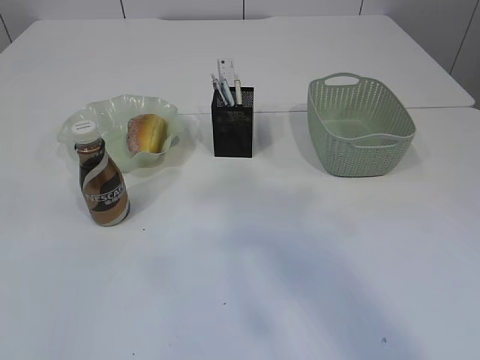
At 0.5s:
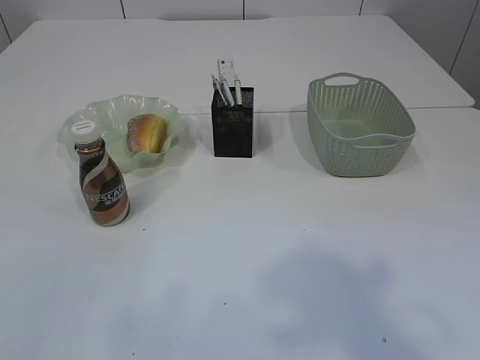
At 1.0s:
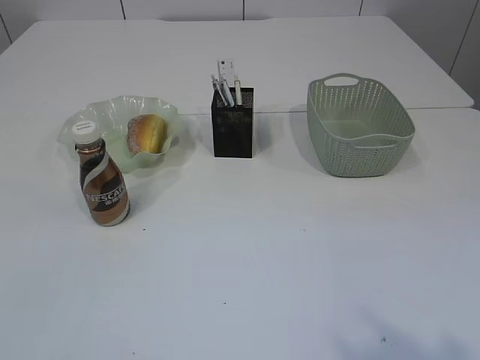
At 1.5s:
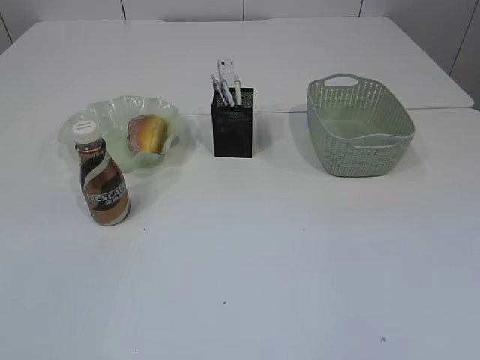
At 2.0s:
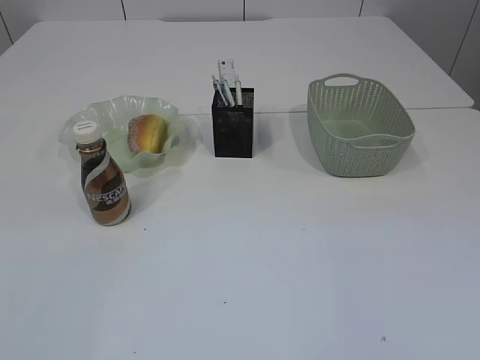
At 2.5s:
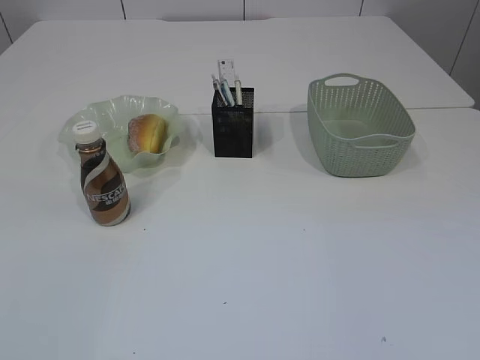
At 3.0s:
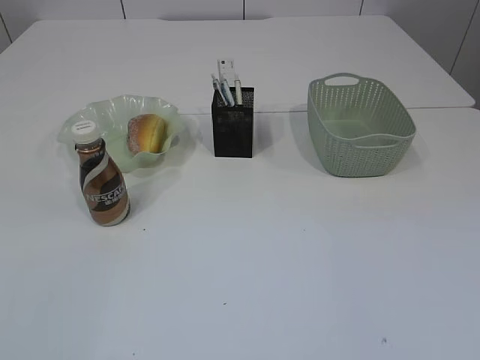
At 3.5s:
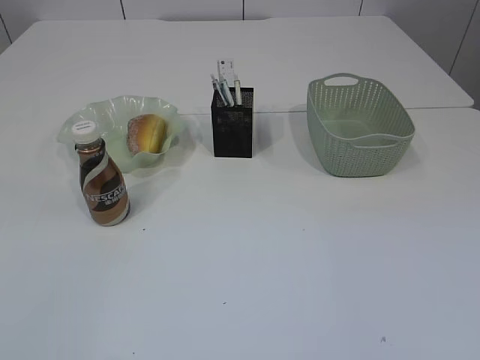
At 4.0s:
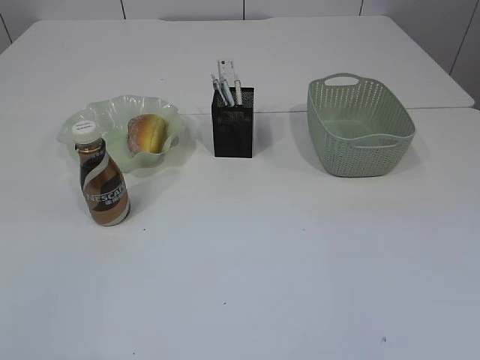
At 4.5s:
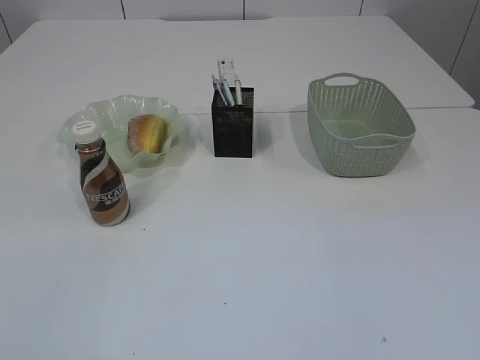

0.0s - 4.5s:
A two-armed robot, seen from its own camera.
0.0s - 2.0s: The left gripper shifts about 20 cm downward.

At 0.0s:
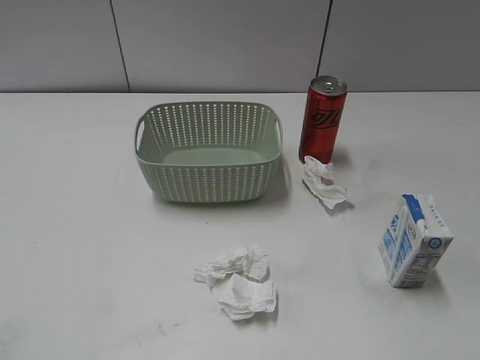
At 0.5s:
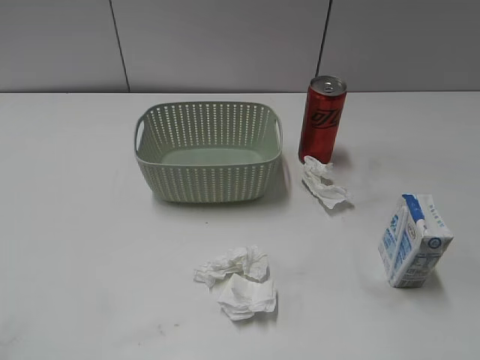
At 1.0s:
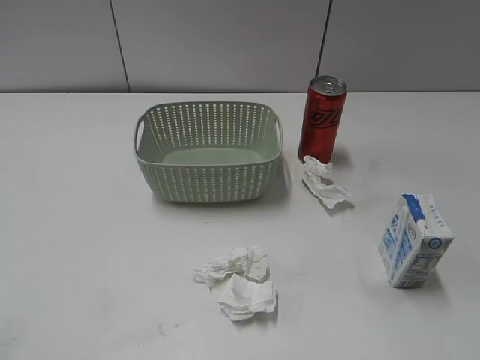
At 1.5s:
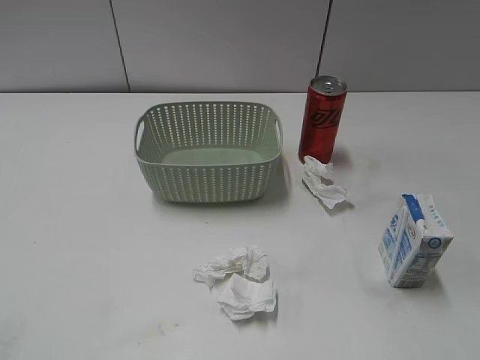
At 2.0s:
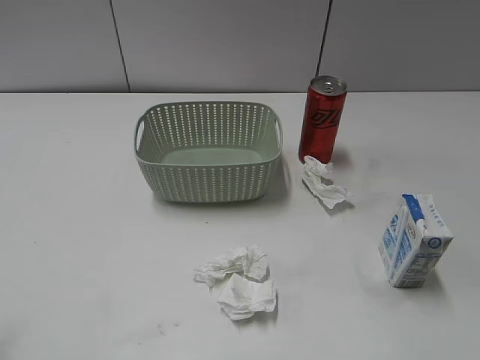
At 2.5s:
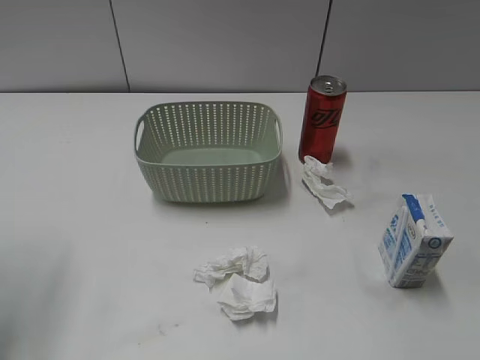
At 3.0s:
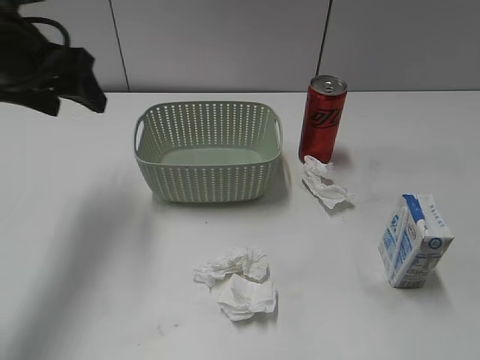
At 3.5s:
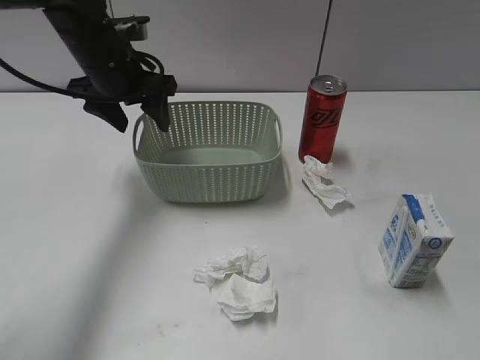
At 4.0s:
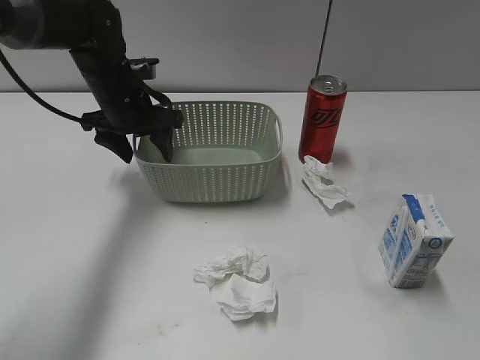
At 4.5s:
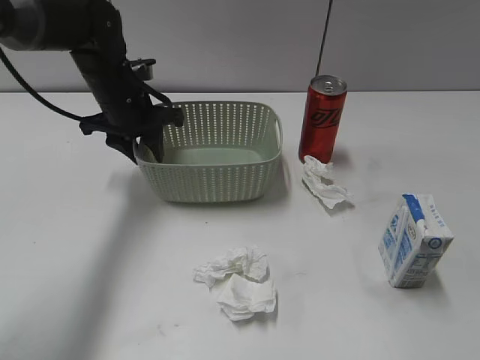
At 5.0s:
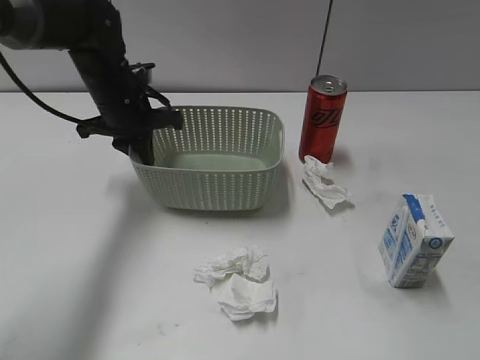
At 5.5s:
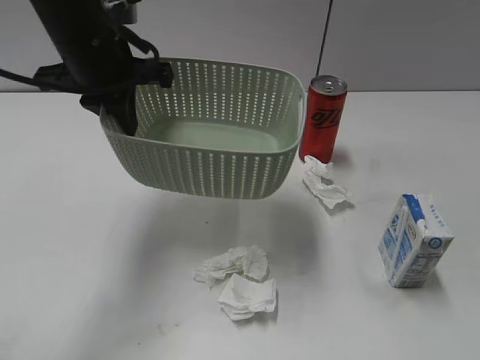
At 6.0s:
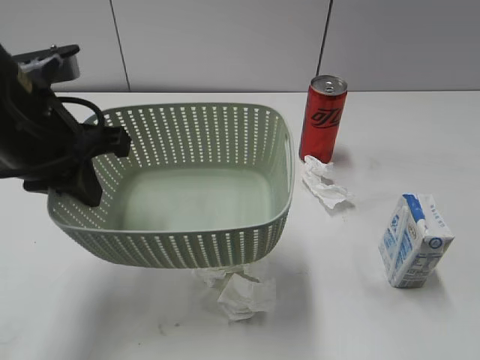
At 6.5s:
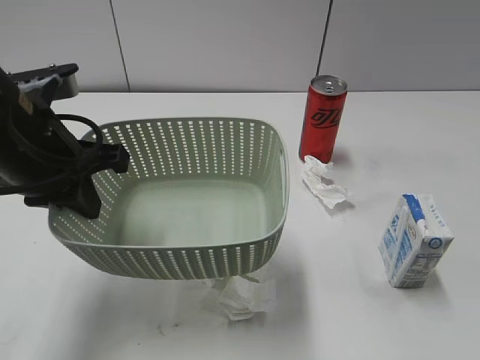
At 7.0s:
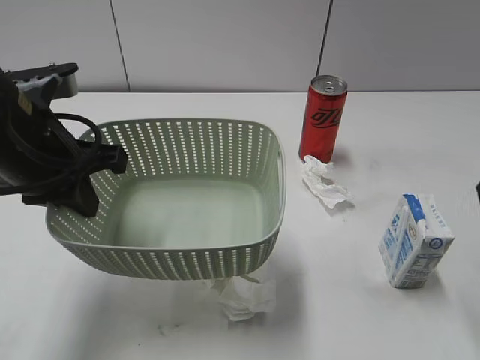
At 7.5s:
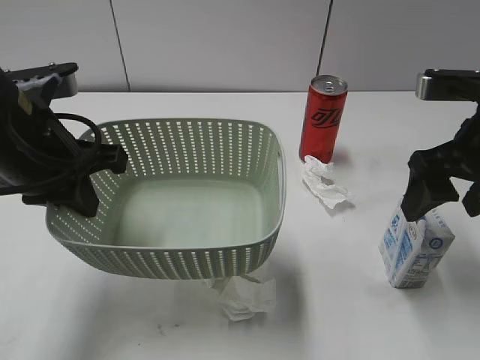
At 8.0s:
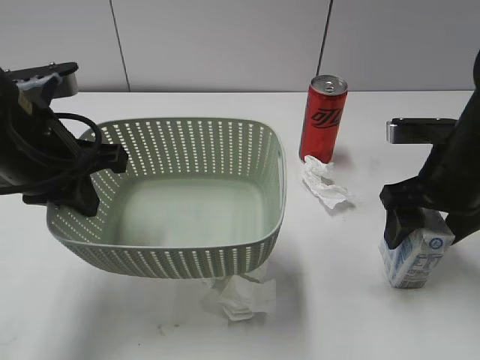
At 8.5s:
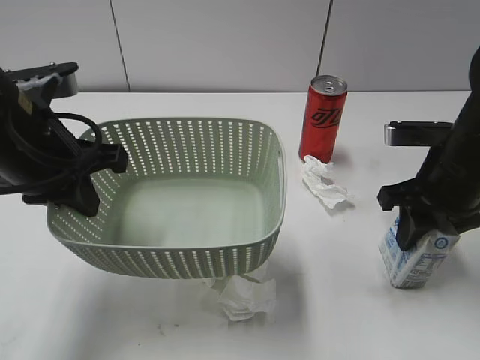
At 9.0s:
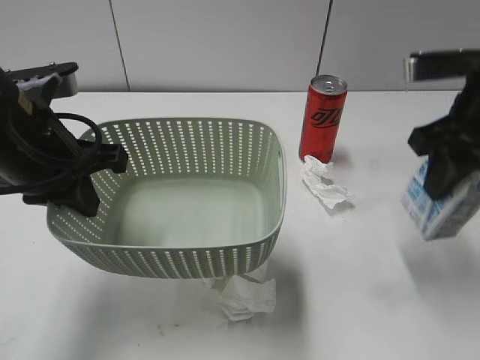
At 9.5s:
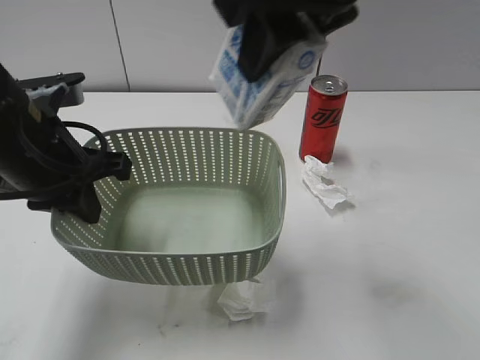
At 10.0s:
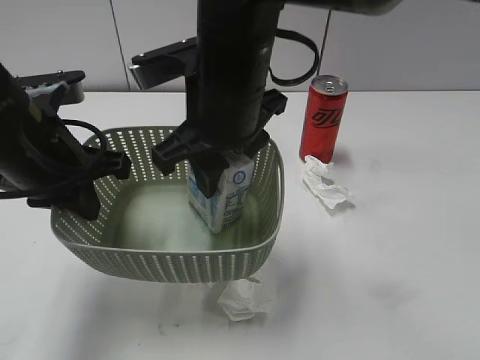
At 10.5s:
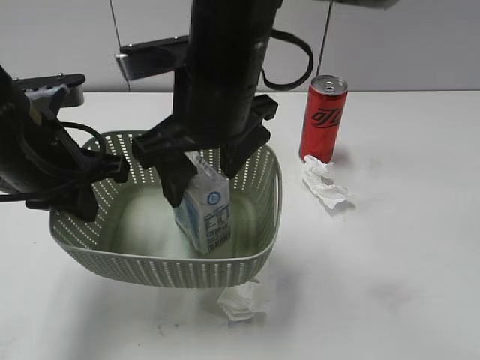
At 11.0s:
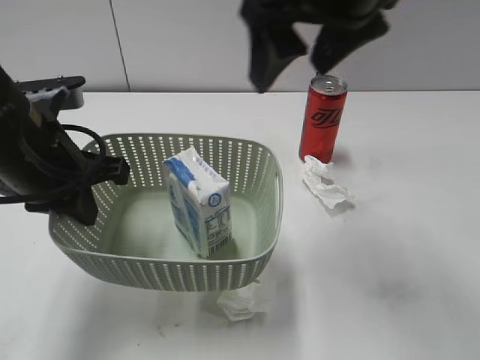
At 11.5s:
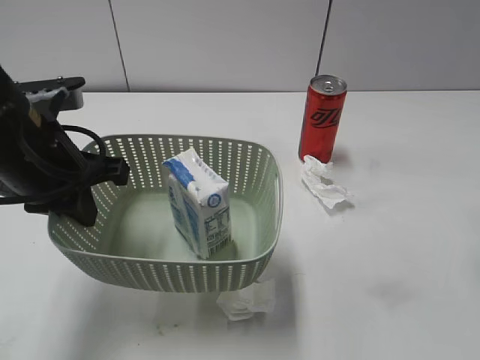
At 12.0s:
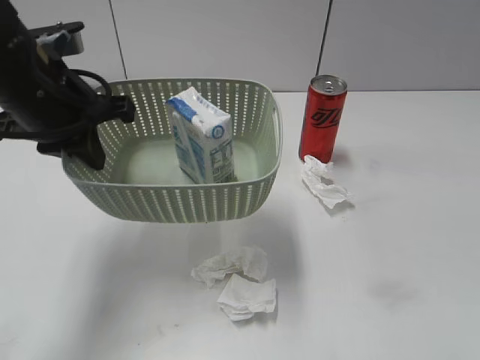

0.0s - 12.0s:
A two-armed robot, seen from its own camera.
Step, 3.0s - 4.5s: Grasp the basket with left gripper.
Step, 5.0s - 6.5s: Lift the basket with left gripper.
Step, 7.0s - 8.5s: Grasp the milk with right gripper.
Step, 9.0s - 10.5s: Place the milk in the basket with right gripper.
2.0s - 4.0s: The left gripper travels forward and to the right by approximately 40 cm.
4.0s - 6.0s: The left gripper goes about 20 cm backward and upward, and closes up.
6.0s - 8.0s: The right gripper goes roughly 30 cm forward.
8.0s - 10.0s: The right gripper moves to the left, some 25 cm, and closes.
10.0s - 12.0s: The left gripper shifts by approximately 5 cm. Meanwhile the right gripper heads to the right and backward, covering approximately 35 cm, and opens.

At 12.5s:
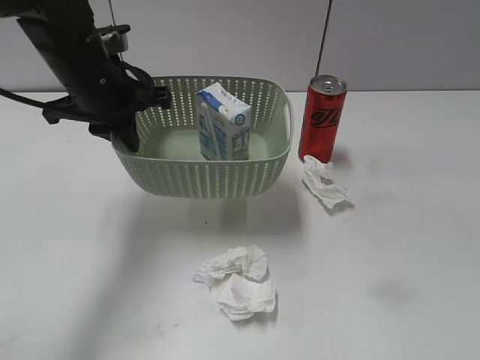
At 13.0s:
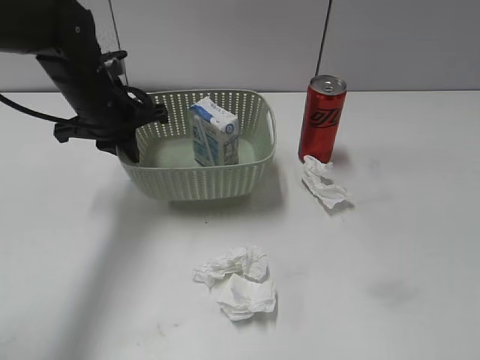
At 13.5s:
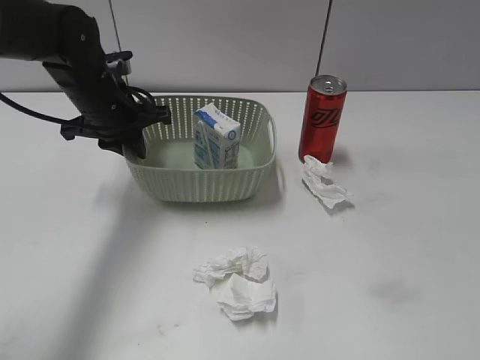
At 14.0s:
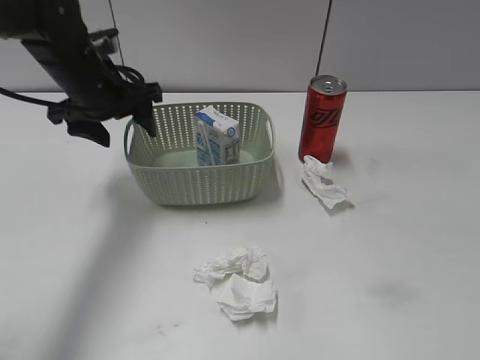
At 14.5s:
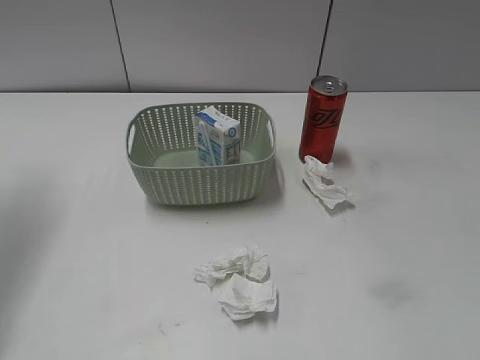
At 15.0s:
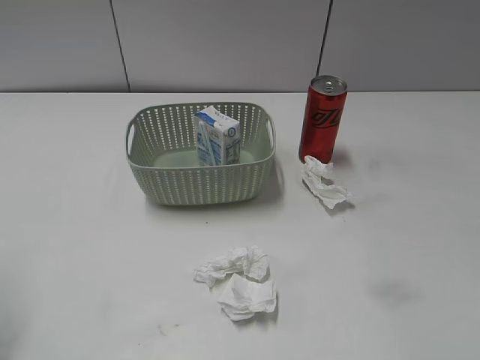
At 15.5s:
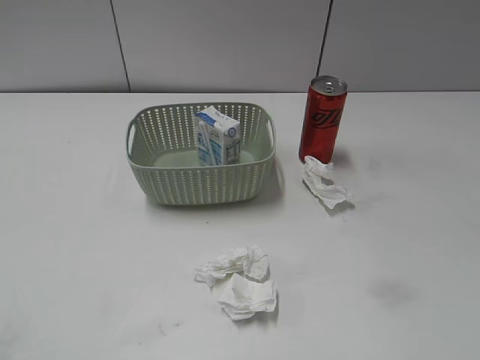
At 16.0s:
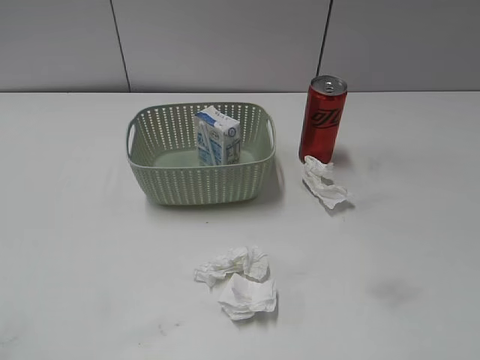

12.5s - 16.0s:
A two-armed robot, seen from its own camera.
12.5s - 14.5s: The left gripper goes approximately 20 cm to the left and upward, and opens up.
14.5s - 16.0s: The left gripper shifts about 35 cm backward.

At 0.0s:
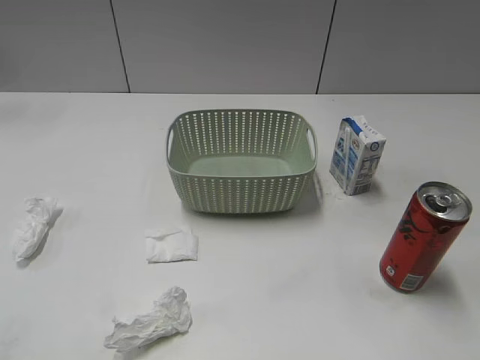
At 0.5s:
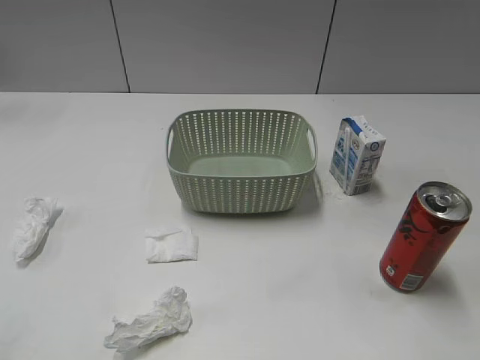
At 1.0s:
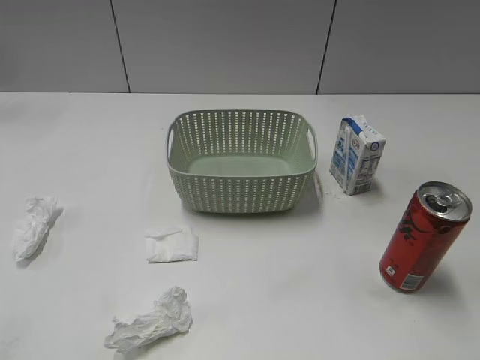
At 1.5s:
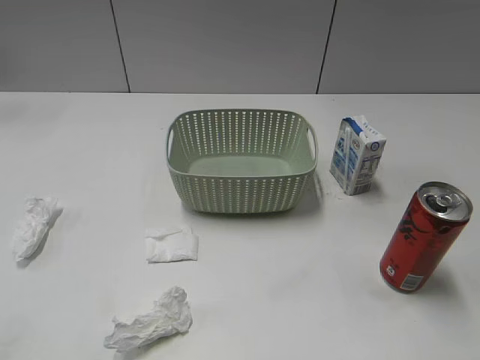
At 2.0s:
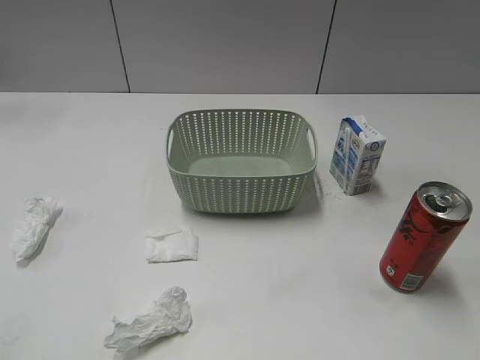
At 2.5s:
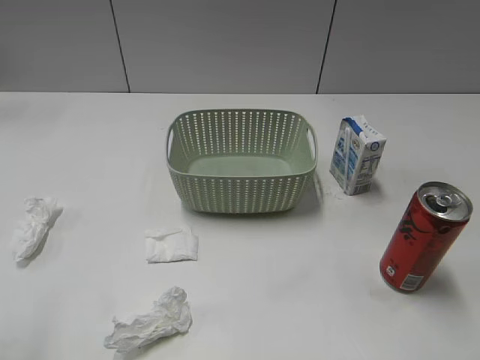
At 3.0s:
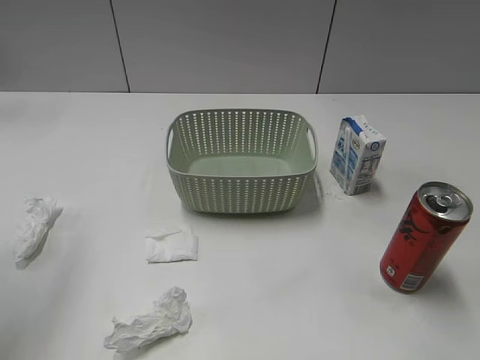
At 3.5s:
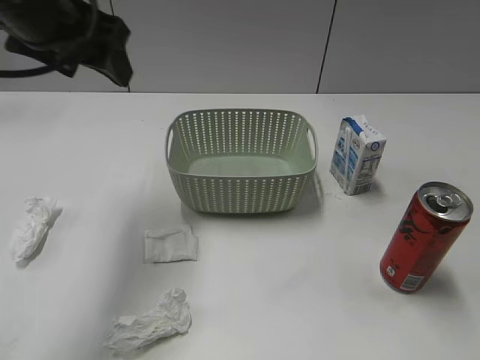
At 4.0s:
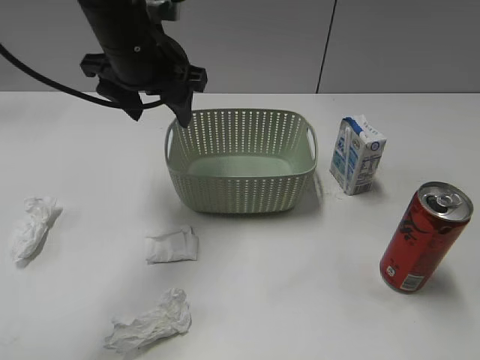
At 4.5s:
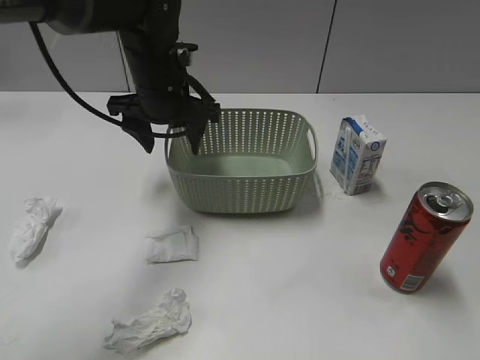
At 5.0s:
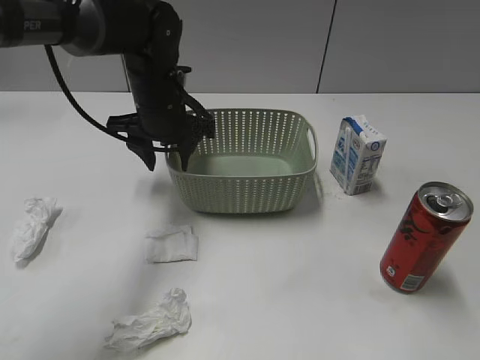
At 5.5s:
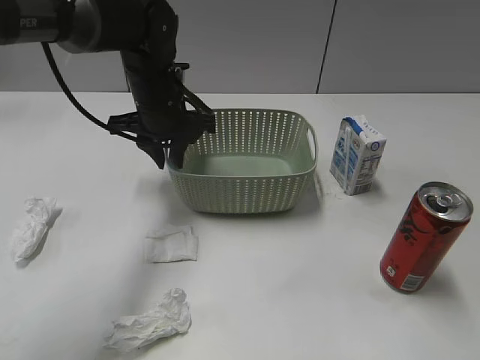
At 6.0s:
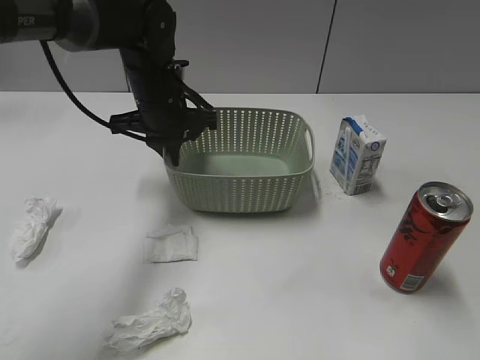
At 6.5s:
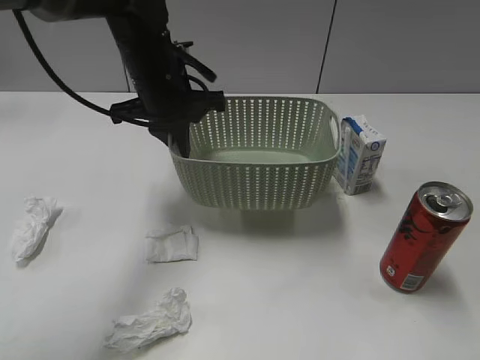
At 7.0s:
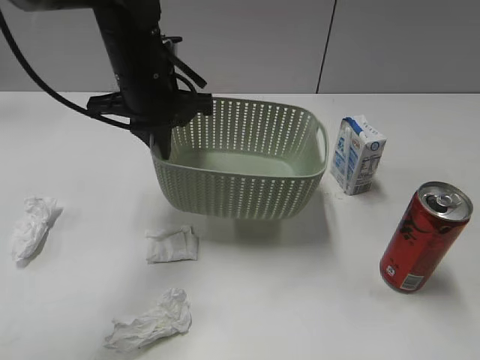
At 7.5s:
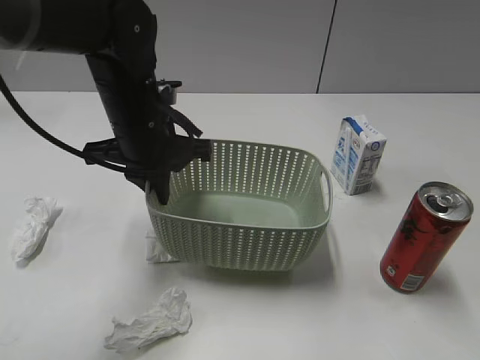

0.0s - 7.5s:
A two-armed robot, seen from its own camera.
Step, 3.5s - 5.5s: Grasp the basket with left gripper.
2.0s - 4.0s: The left gripper heads forward and to the right, covering some 40 cm.
4.0s - 5.5s: The left gripper goes some 10 cm downward, and closes its fingers.
5.5s - 7.5s: The left gripper shifts some 10 cm backward, and closes up, while the right gripper travels forward and upward by some 15 cm, and opens its fingers.
